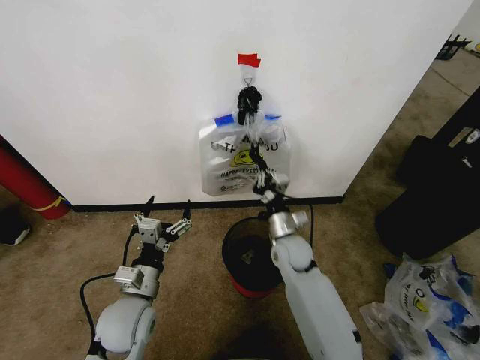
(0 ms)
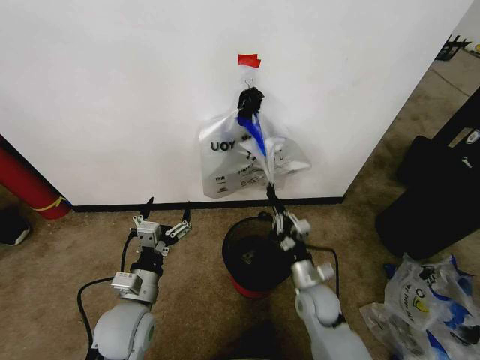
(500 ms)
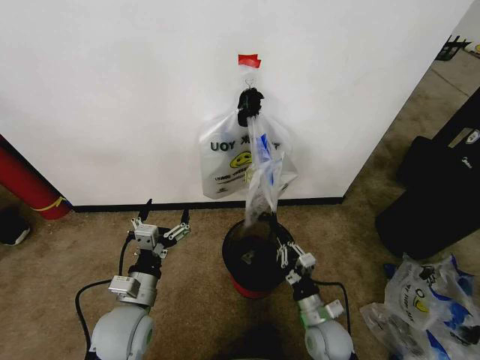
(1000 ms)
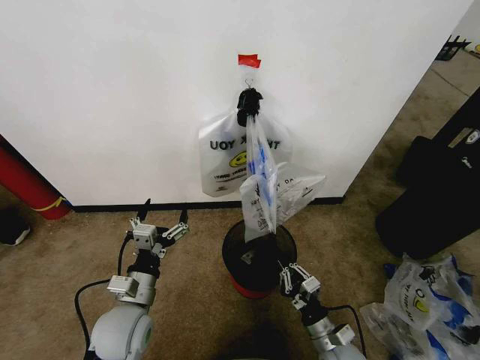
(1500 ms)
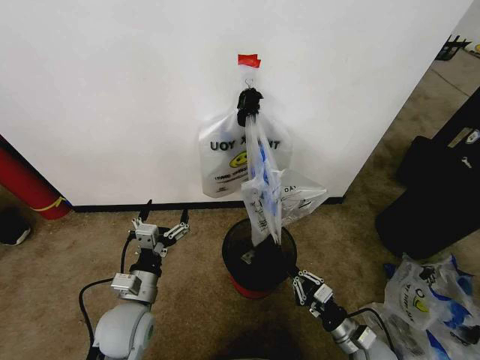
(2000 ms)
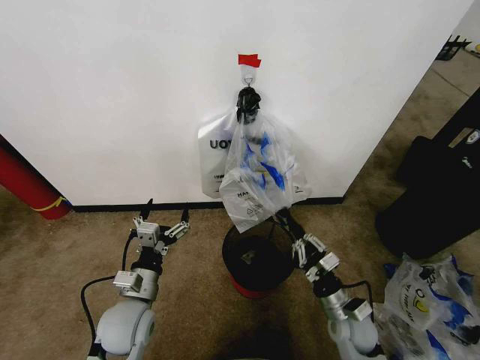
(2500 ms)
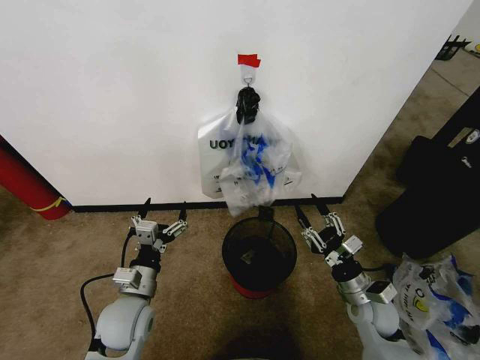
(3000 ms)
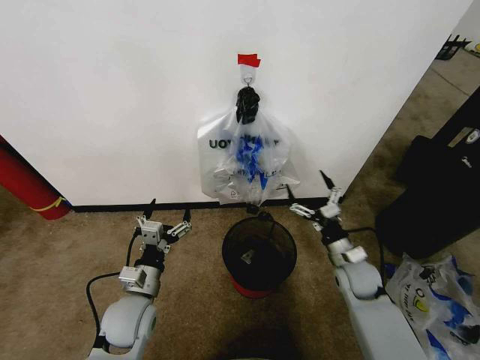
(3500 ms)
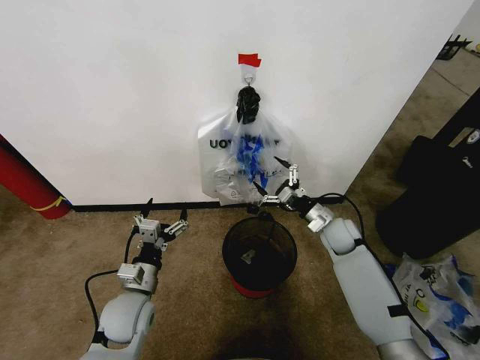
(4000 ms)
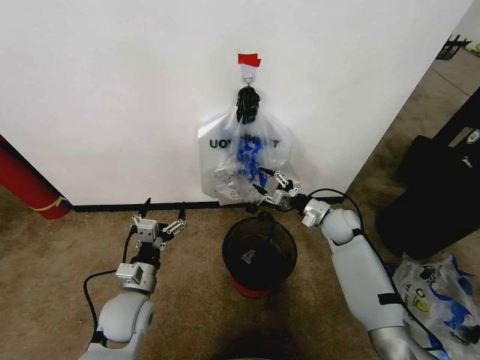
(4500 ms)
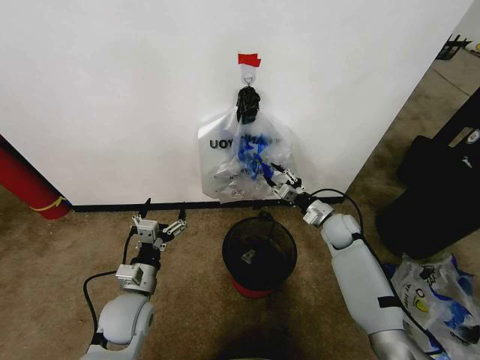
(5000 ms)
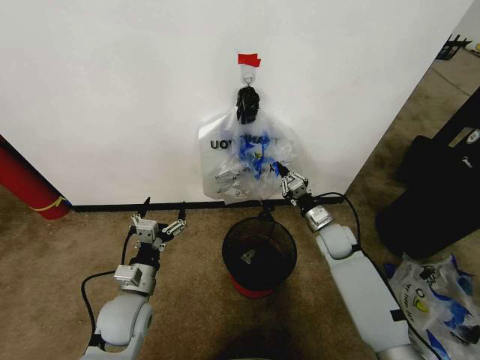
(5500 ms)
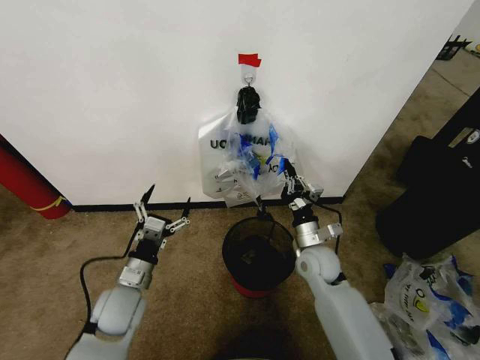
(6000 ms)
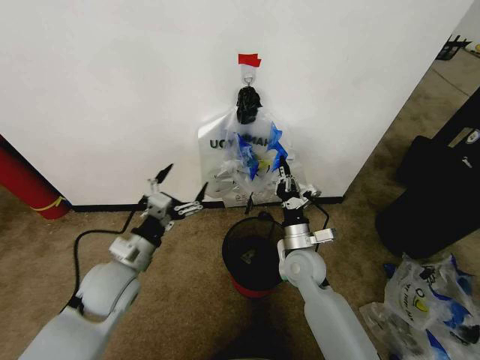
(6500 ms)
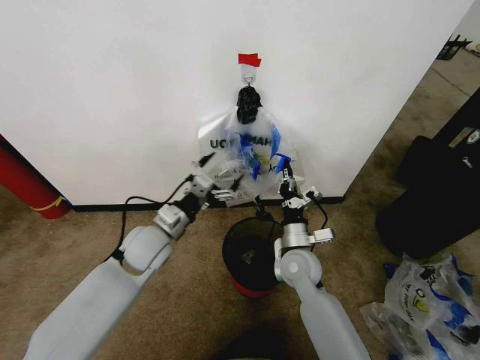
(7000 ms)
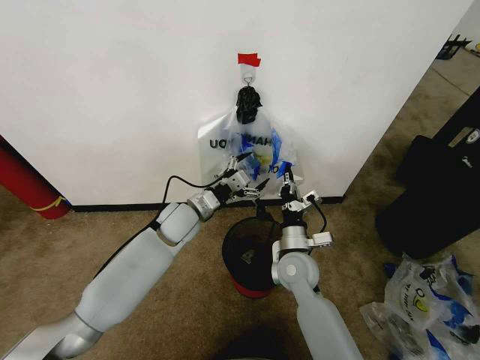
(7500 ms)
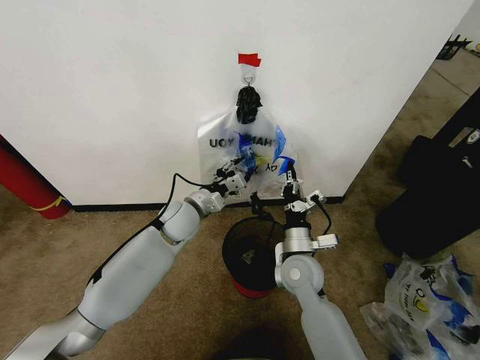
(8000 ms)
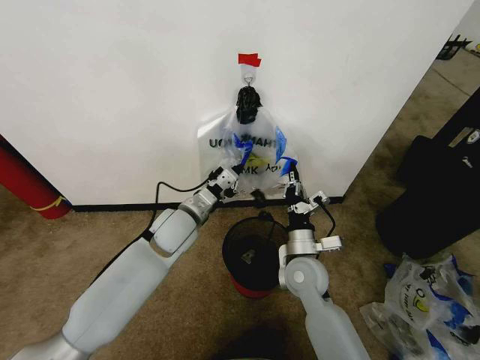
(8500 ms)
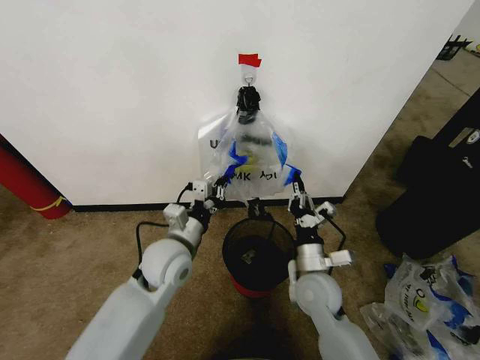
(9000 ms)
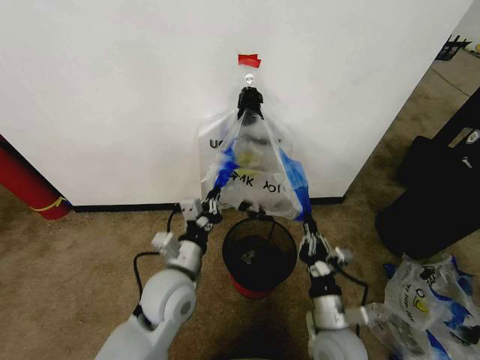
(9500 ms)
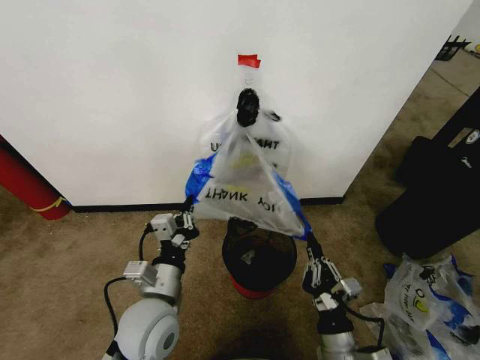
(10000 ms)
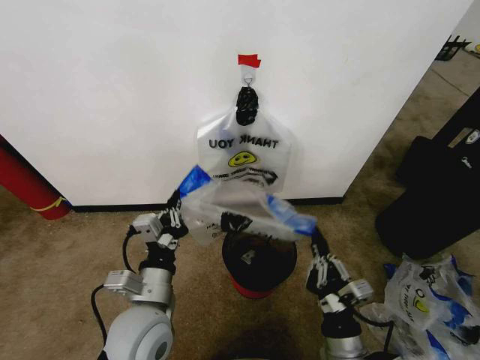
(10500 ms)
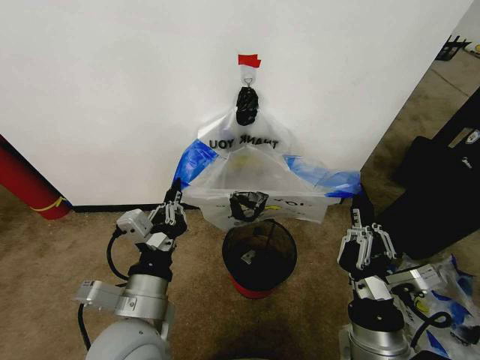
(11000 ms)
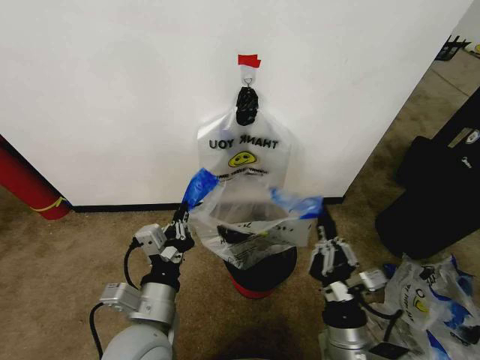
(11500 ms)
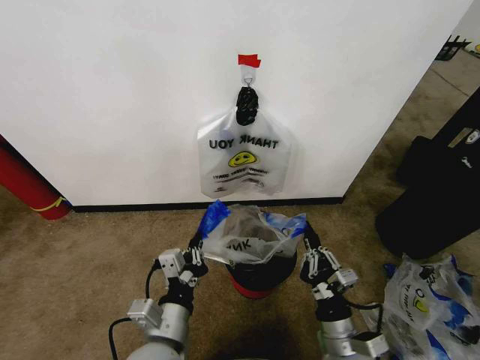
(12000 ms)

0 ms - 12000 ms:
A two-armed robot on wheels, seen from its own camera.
Task of the whole recording: Pick up the garbage bag from the wall and place it over the trash bin.
0 ms - 2000 ms: The right gripper heads backward, to the right and downward, covering roughly 30 cm.
2000 ms - 4000 ms: The right gripper shifts some 30 cm forward and upward, and opens up.
4000 ms - 6000 ms: The right gripper goes roughly 10 cm to the left and backward, and closes its fingers.
6000 ms - 8000 ms: The left gripper goes approximately 20 cm forward, to the right and upward, and closes up, while the right gripper heads to the left, covering about 5 cm.
8000 ms - 10000 ms: The grippers both shift backward by roughly 20 cm. The left gripper closes.
10000 ms - 12000 ms: The left gripper goes some 5 cm backward, and reaches about 5 cm upward, then returns, while the right gripper reaches roughly 10 cm upward, then returns.

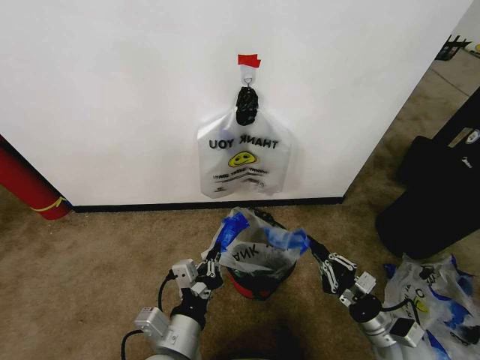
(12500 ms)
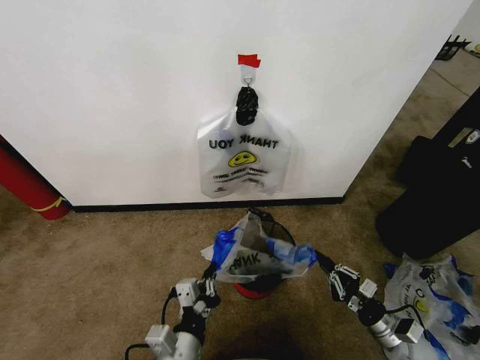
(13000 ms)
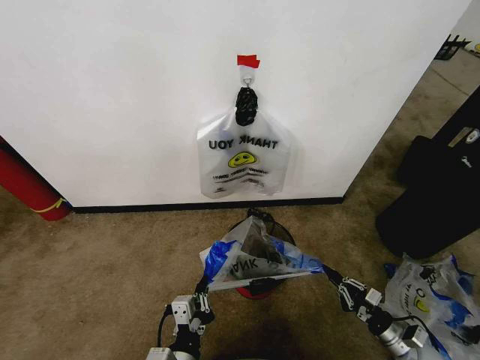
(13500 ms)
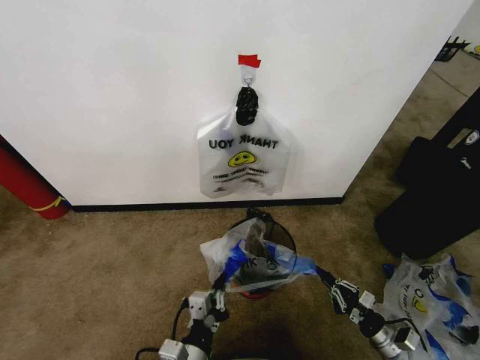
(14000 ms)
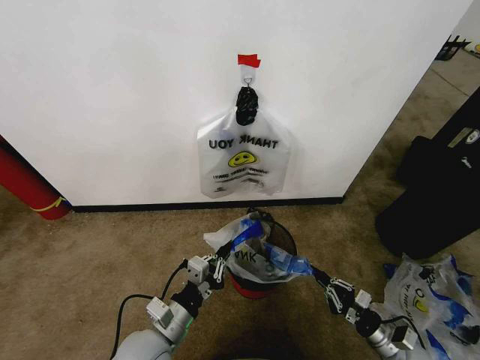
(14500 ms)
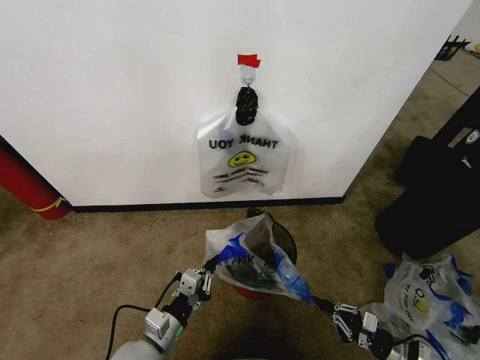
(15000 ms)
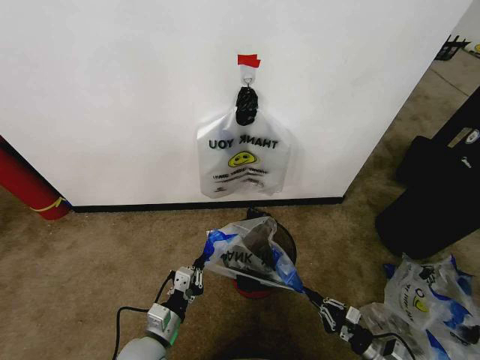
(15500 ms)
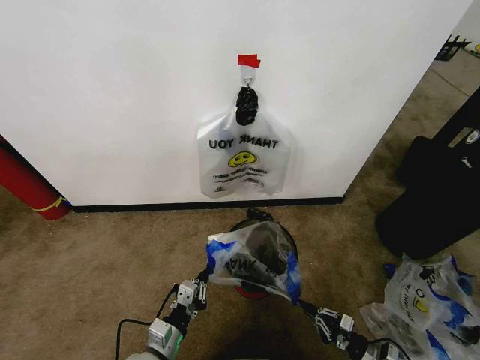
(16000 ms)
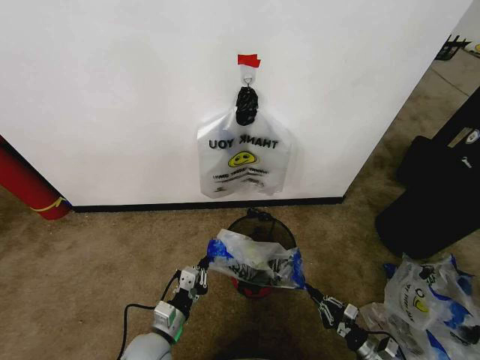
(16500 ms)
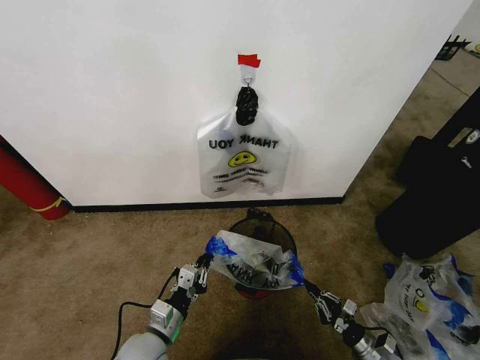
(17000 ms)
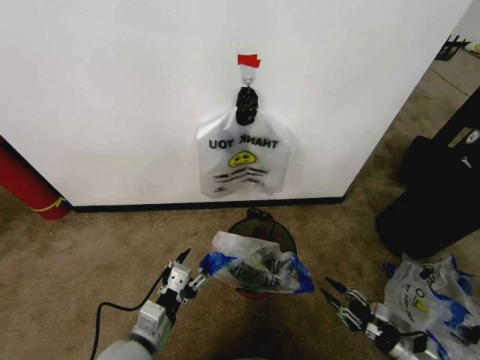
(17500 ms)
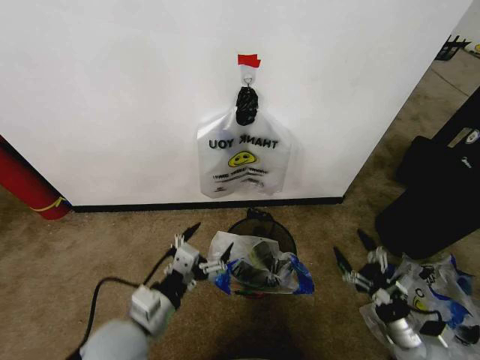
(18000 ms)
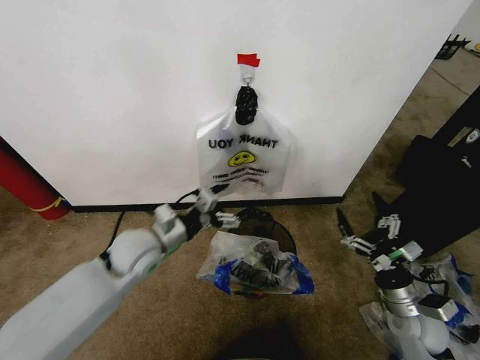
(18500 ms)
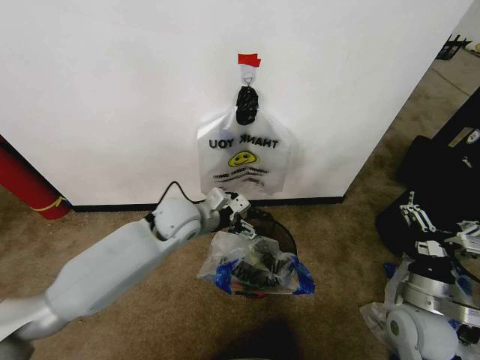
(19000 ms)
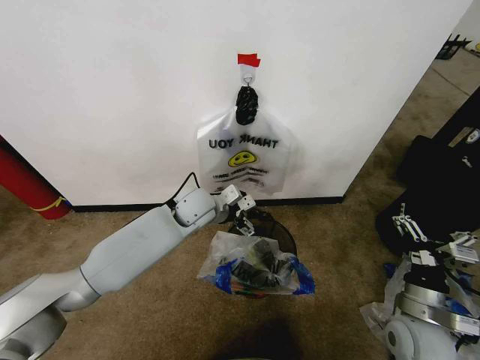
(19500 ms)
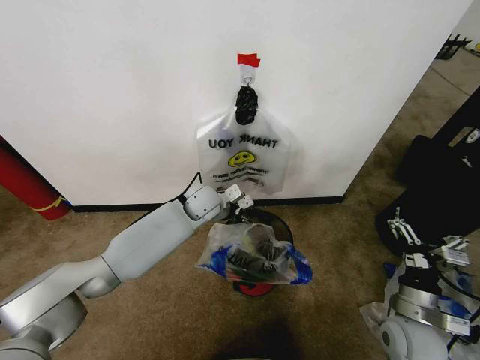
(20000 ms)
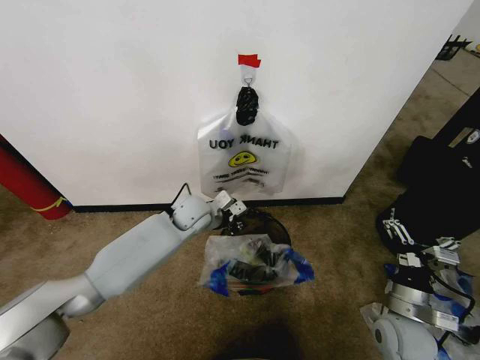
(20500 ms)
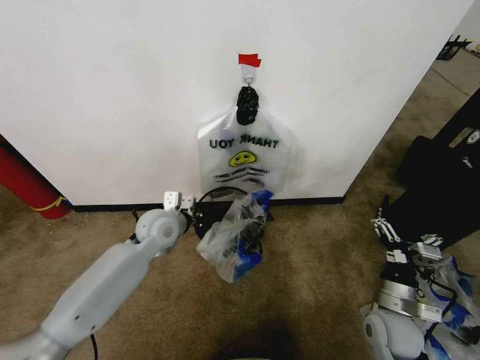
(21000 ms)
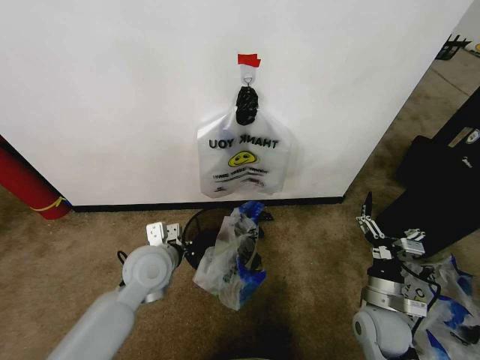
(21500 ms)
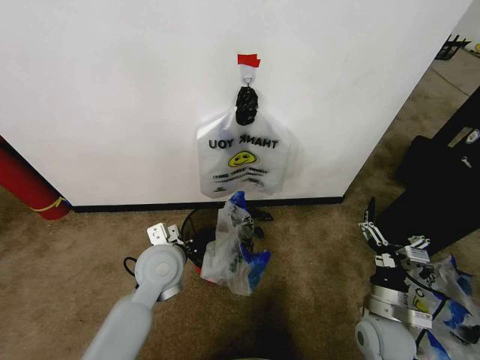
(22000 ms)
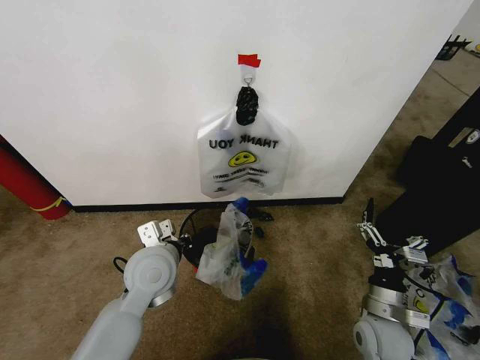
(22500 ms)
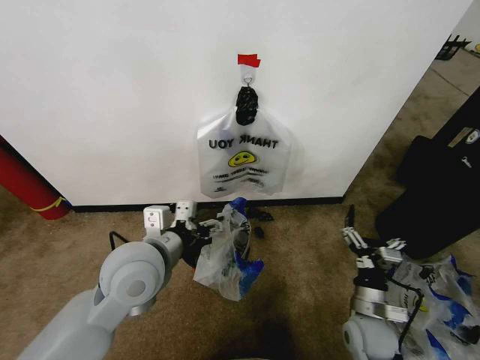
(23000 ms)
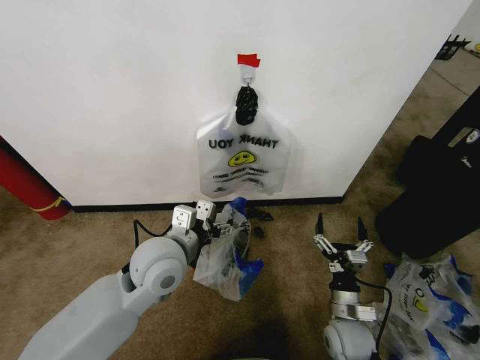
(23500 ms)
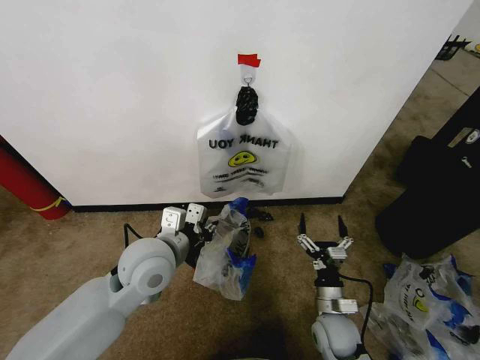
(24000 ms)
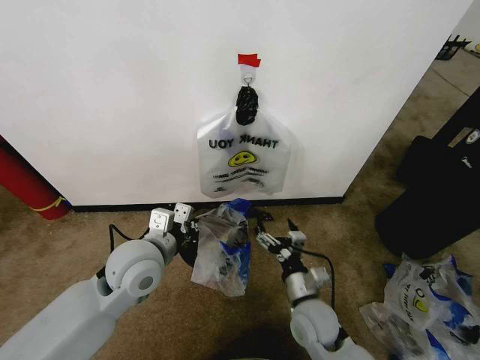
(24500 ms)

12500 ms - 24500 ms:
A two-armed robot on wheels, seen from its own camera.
Task of the whole recording: Pick up the garbage bag from the wall and place it over the trash bin.
12500 ms - 14500 ms: The left gripper is displaced downward and forward by roughly 10 cm. The right gripper shifts approximately 15 cm downward and to the right.
14500 ms - 16500 ms: Both grippers move downward, roughly 10 cm.
16500 ms - 18500 ms: The right gripper travels upward by some 25 cm, and opens its fingers, while the left gripper travels upward and forward by roughly 25 cm, and opens.
18500 ms - 20500 ms: The left gripper moves forward and to the right, some 15 cm, and closes.
20500 ms - 22500 ms: The left gripper moves backward, about 15 cm.
22500 ms - 24500 ms: The right gripper goes some 15 cm to the left, while the left gripper opens and closes again.

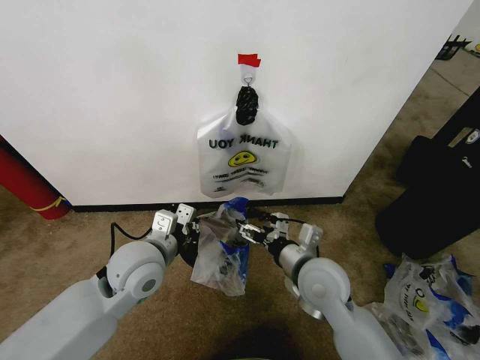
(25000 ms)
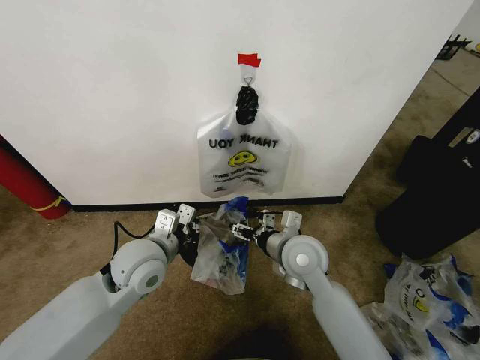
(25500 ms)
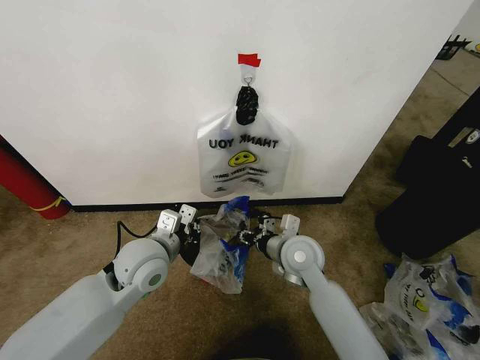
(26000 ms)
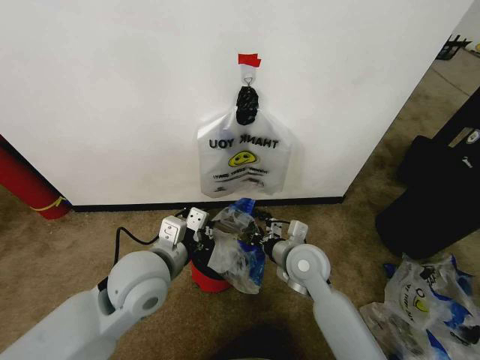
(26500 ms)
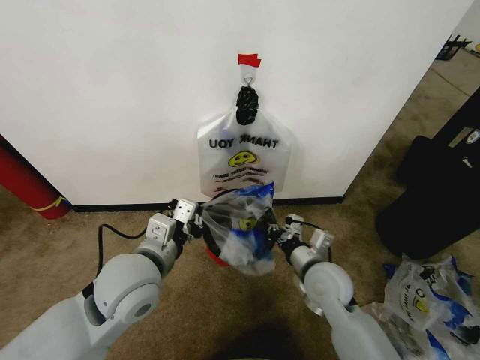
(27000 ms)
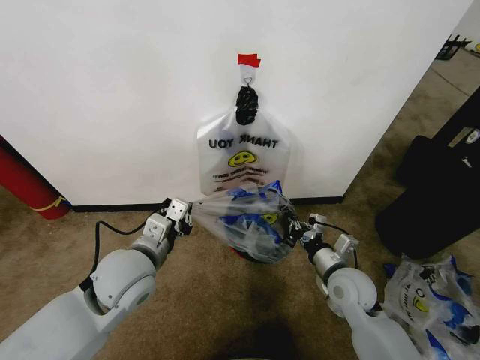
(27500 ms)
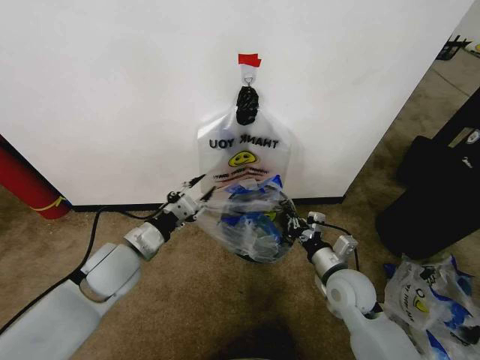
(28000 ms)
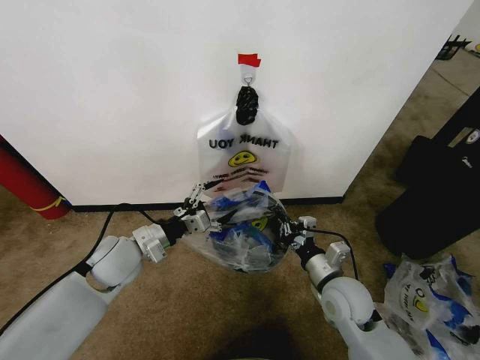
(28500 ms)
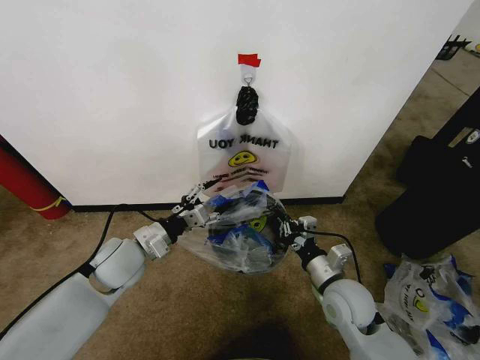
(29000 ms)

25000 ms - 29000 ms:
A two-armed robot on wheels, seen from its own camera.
Task of the whole recording: Pick up the garbage bag from the wall and place it over the trash bin.
25000 ms - 27000 ms: The left gripper changes place by about 5 cm, while the right gripper changes place by roughly 5 cm, and closes its fingers.
27000 ms - 29000 ms: The right gripper changes place by approximately 5 cm, while the left gripper travels forward, downward and to the left by some 15 cm, and opens up.
